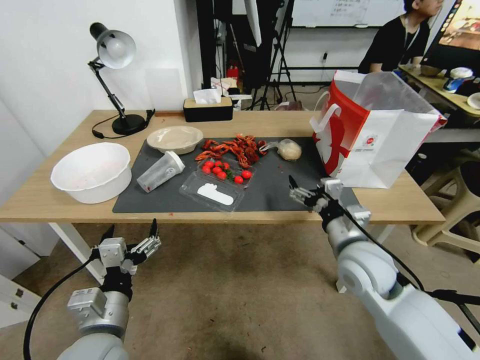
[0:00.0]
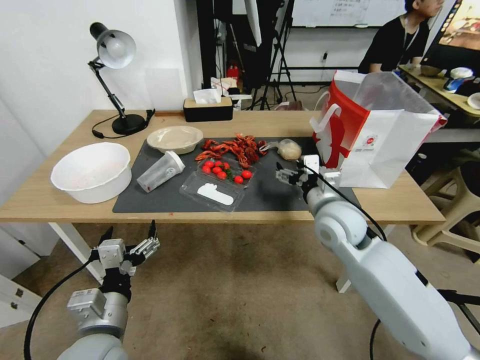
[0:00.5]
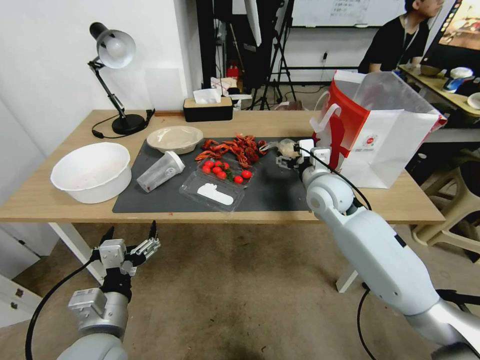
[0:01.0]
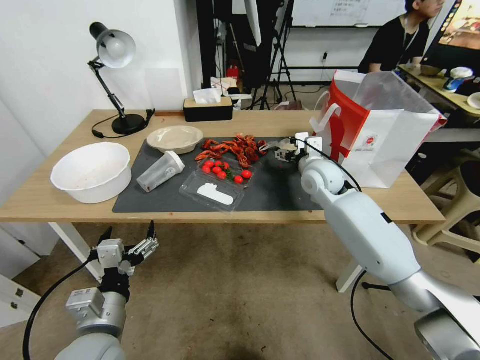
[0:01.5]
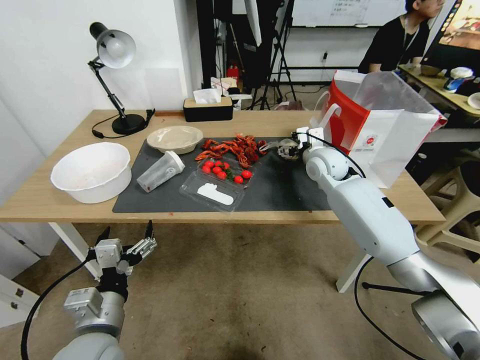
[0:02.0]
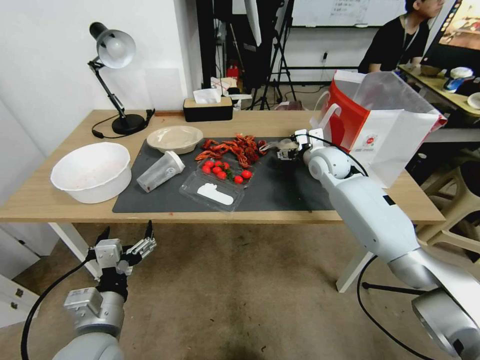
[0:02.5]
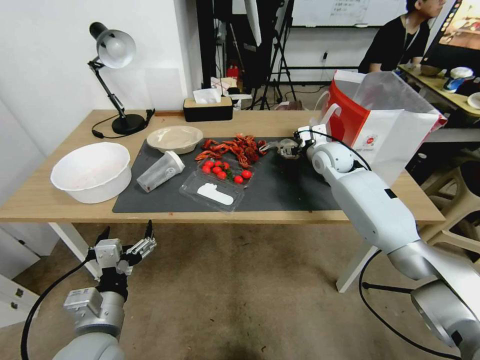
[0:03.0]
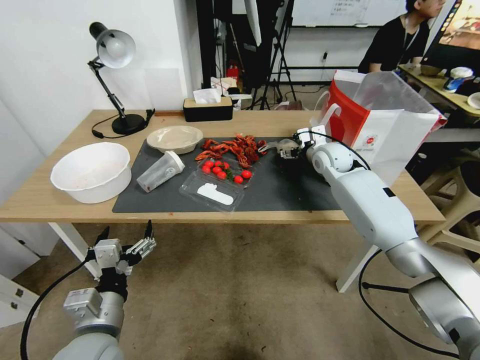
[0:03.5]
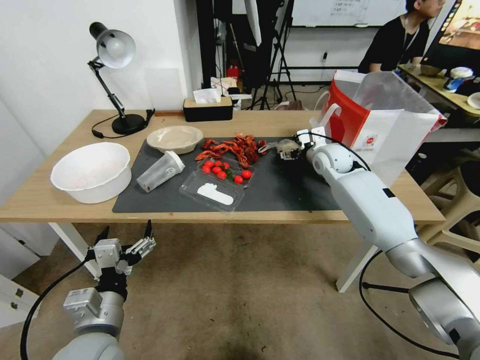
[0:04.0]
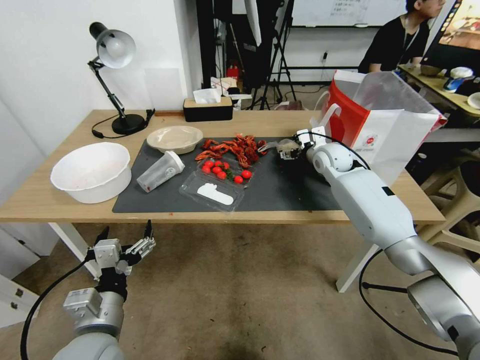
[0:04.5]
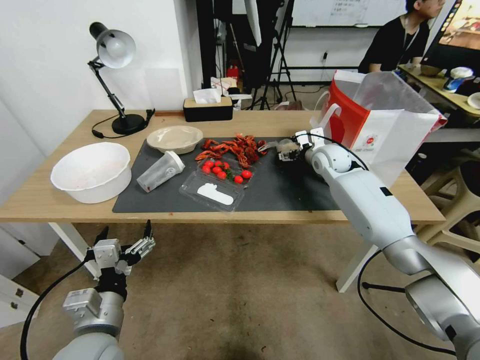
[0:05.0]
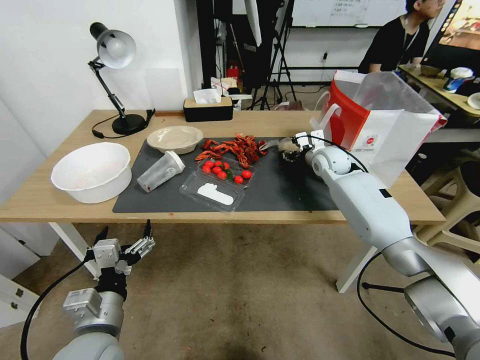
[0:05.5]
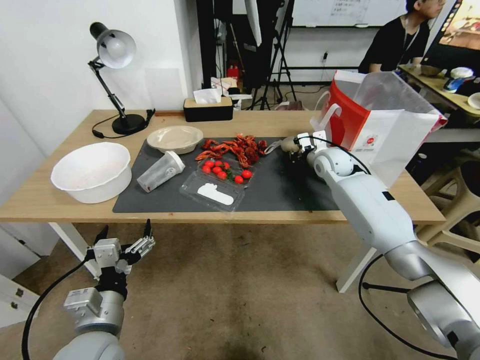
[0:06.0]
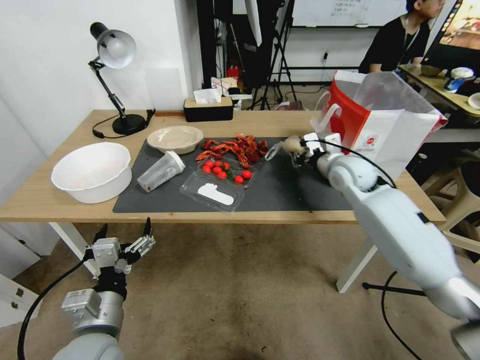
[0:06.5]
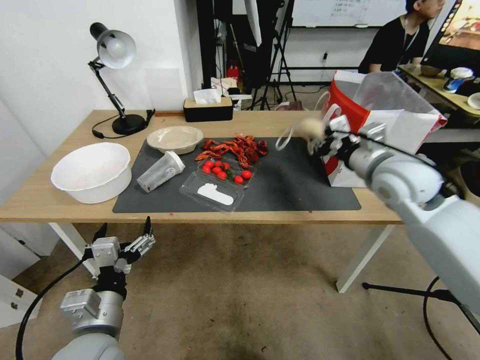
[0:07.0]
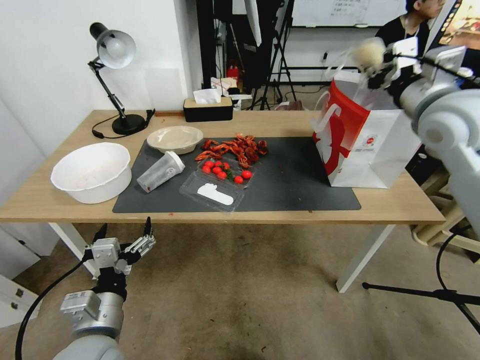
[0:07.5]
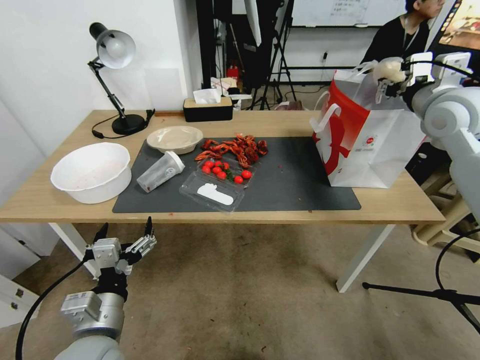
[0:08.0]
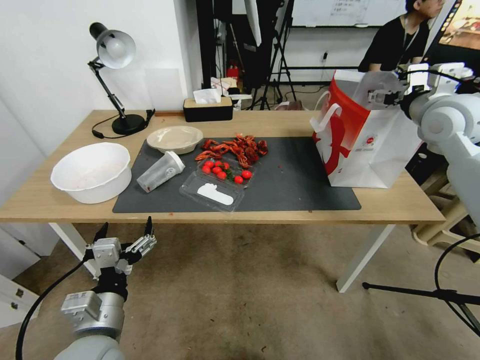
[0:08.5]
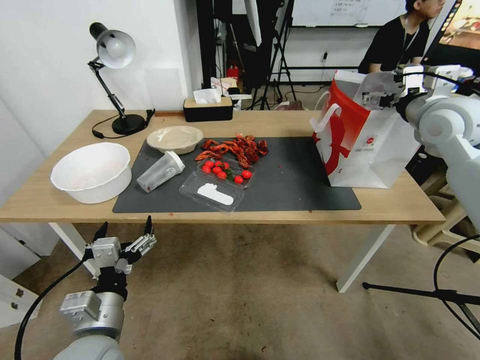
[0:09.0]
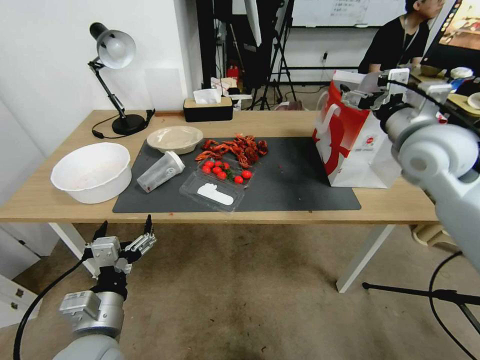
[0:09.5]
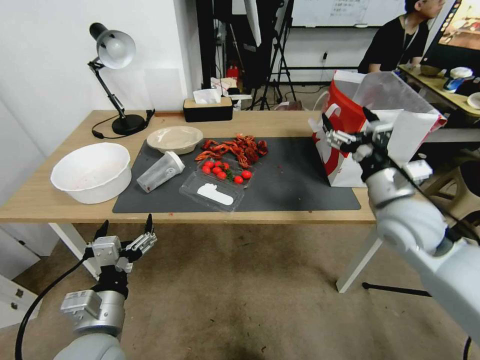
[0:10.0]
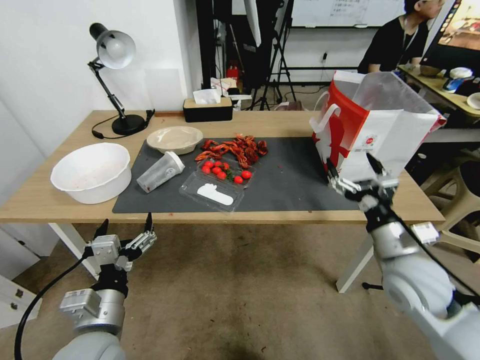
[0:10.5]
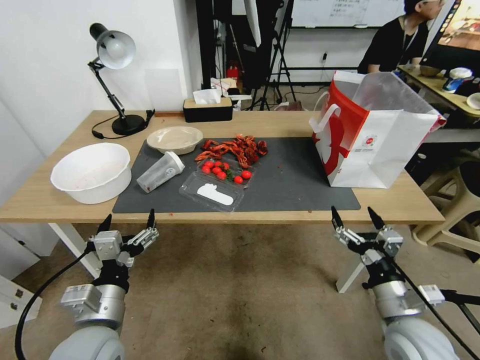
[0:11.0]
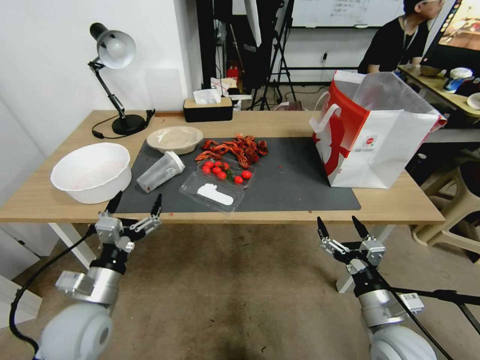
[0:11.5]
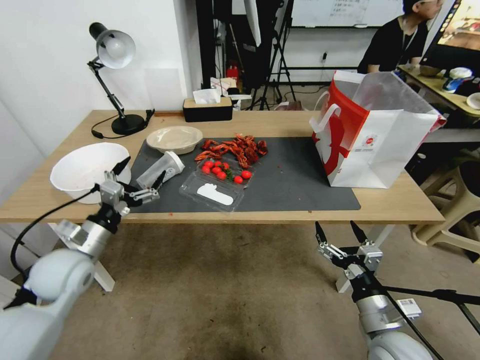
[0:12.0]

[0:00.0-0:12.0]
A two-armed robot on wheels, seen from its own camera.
0:00.0 to 0:02.0: The right gripper shifts roughly 25 cm forward.
0:02.0 to 0:04.0: The right gripper ends up roughly 5 cm from where it was.
0:04.0 to 0:06.0: The right gripper closes up.
0:06.0 to 0:08.0: The right gripper is displaced upward, backward and to the right by approximately 30 cm.
0:08.0 to 0:10.0: The right gripper moves downward and backward, roughly 20 cm, and opens up.
0:10.0 to 0:12.0: The right gripper heads downward and backward, covering roughly 25 cm. The left gripper goes about 20 cm forward and to the left.

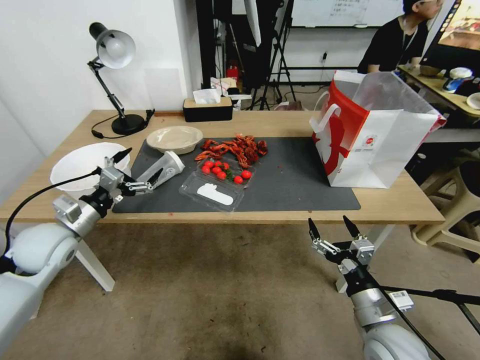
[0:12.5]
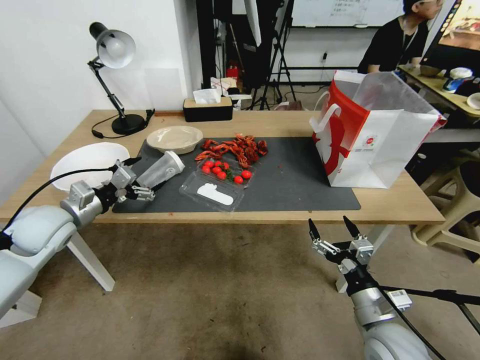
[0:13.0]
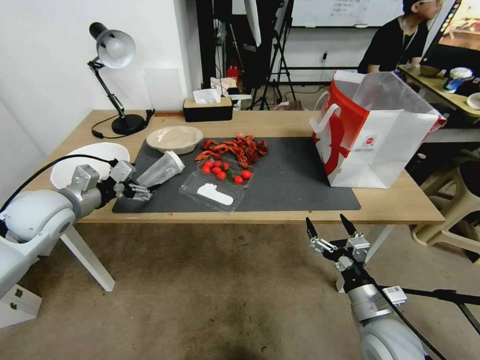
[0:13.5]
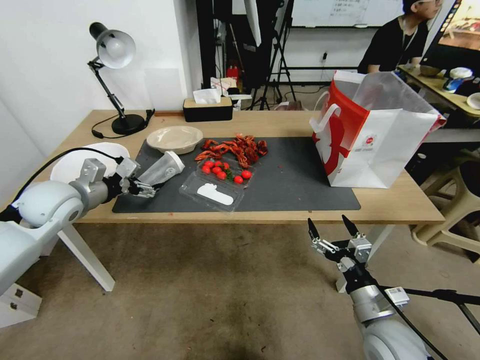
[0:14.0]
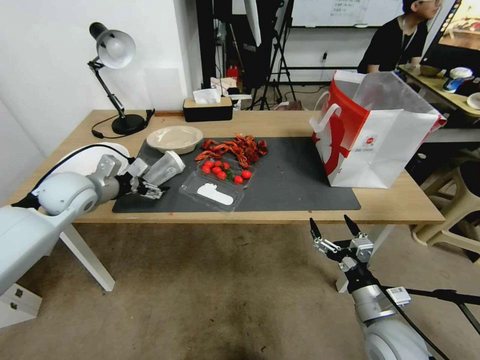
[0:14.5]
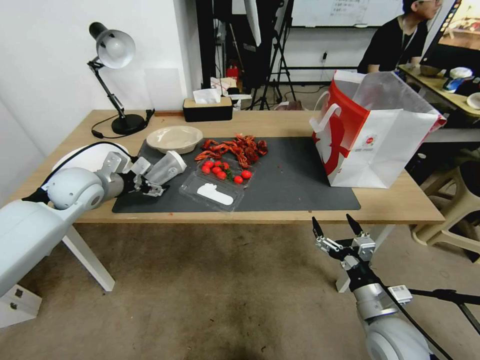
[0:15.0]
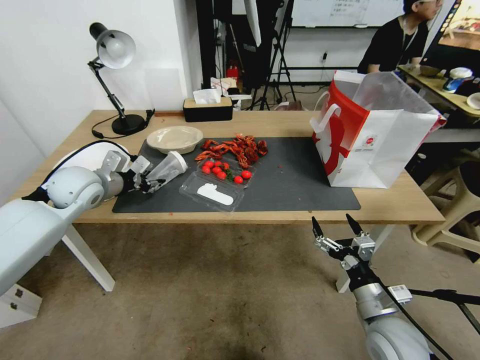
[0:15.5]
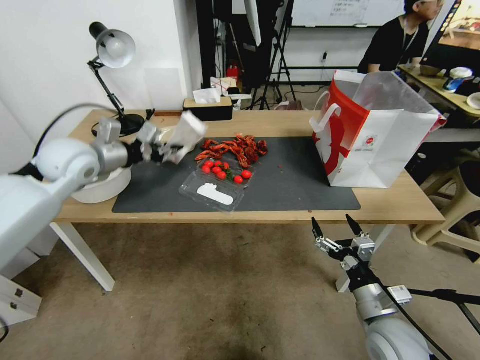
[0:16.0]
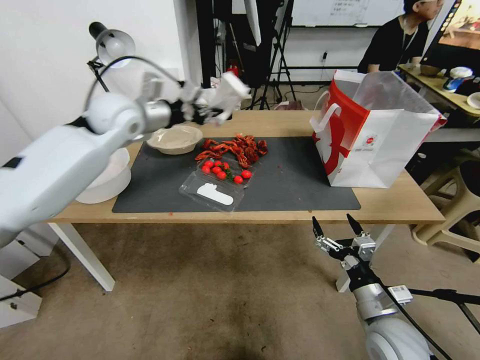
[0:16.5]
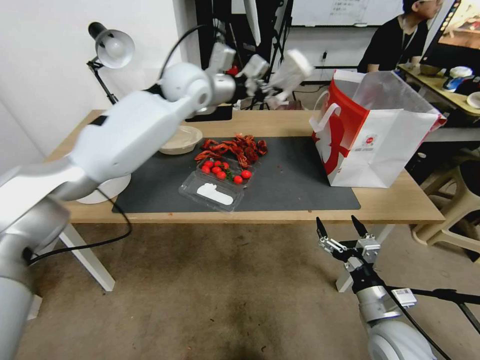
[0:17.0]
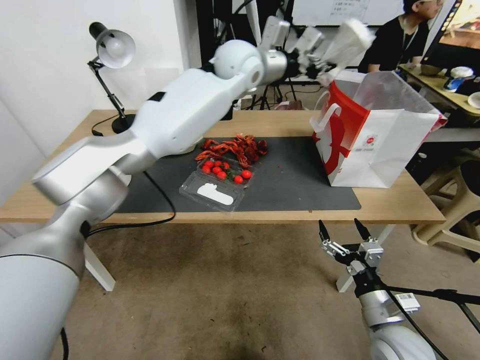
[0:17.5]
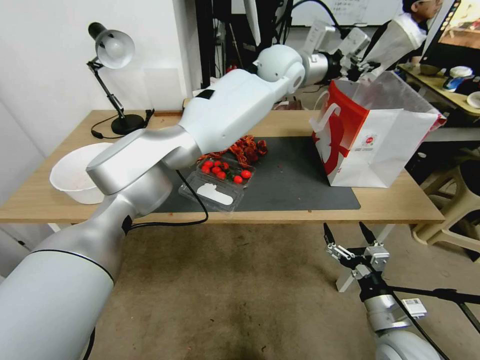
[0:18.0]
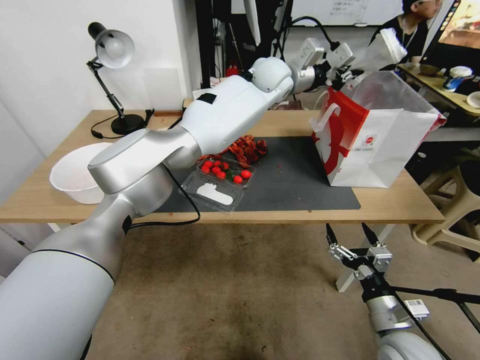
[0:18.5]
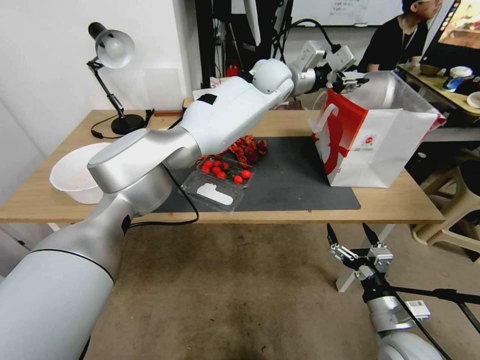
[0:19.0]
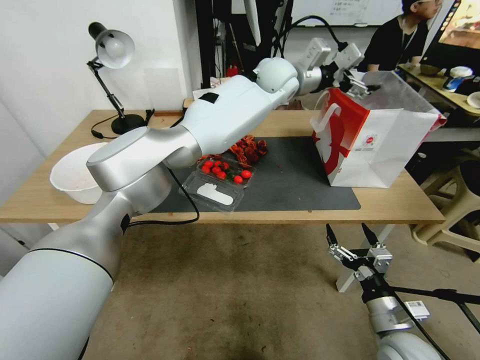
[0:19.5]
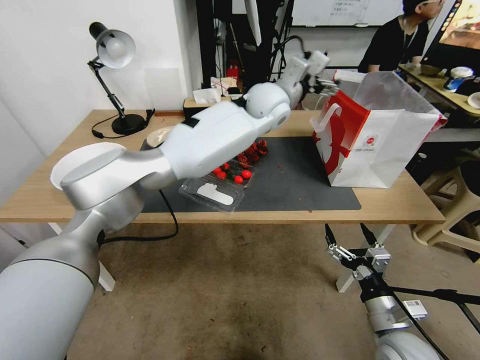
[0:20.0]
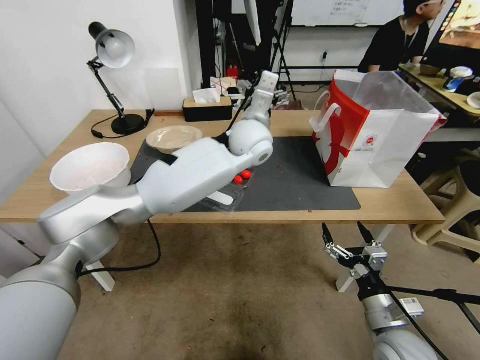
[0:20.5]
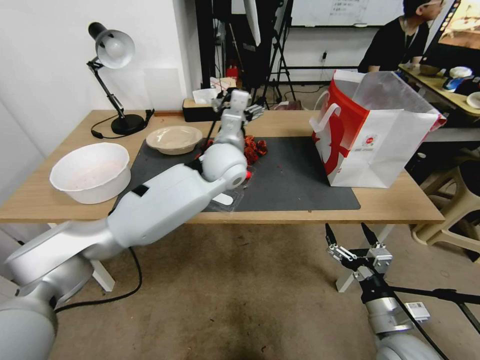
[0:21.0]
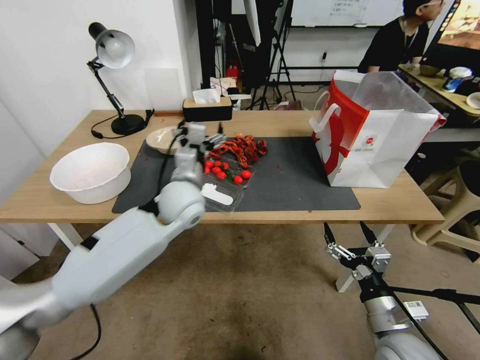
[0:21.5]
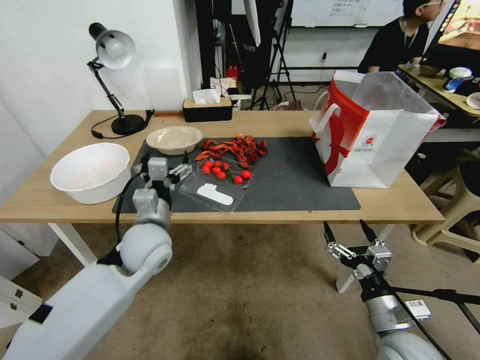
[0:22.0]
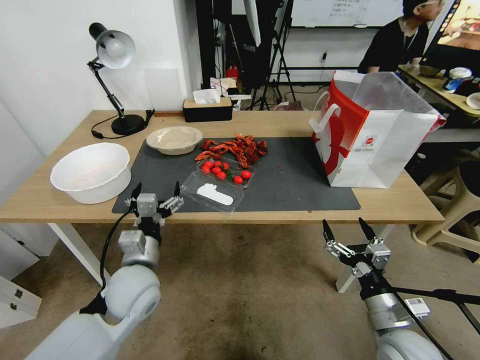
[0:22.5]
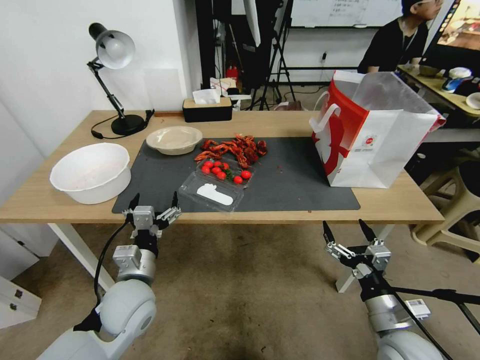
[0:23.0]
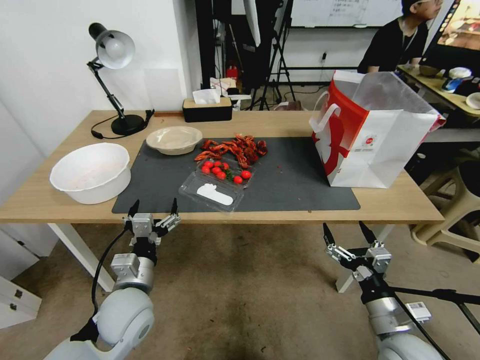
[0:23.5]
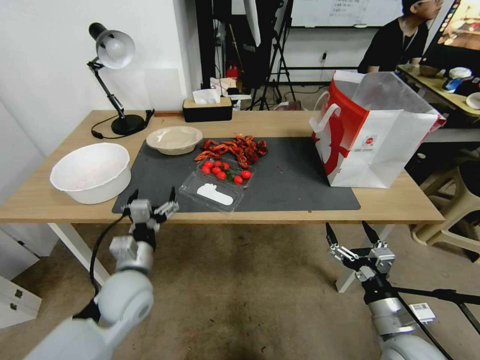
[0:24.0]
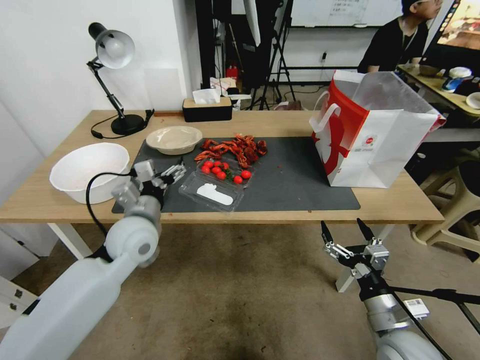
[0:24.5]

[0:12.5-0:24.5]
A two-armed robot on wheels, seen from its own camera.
0:12.5 to 0:14.5: The left gripper moves forward and upward, some 10 cm.
0:14.5 to 0:16.5: The left gripper travels upward, to the right and forward by about 20 cm, and closes up.
0:16.5 to 0:18.5: The left gripper is displaced to the right by some 30 cm.
0:18.5 to 0:20.5: The left gripper moves backward and downward, some 10 cm, and opens.
0:20.5 to 0:22.5: The left gripper moves backward, to the left and downward, roughly 40 cm.
0:22.5 to 0:24.5: The left gripper travels forward and upward by approximately 10 cm.

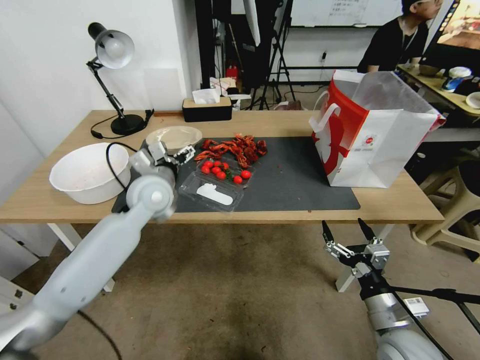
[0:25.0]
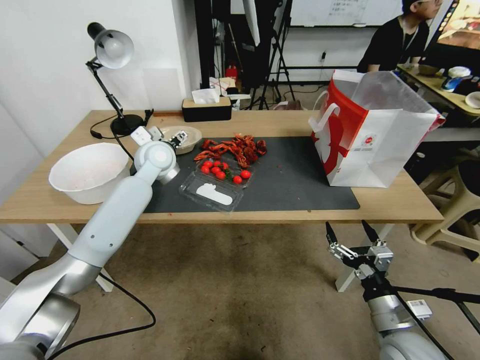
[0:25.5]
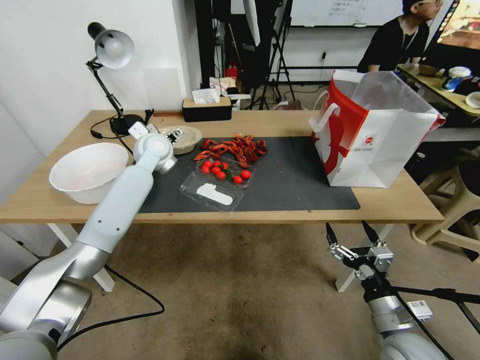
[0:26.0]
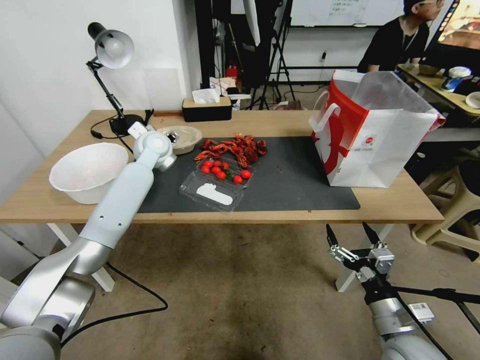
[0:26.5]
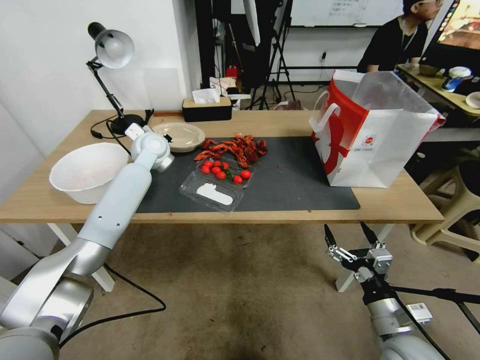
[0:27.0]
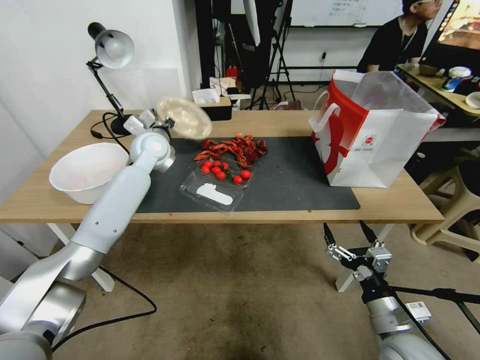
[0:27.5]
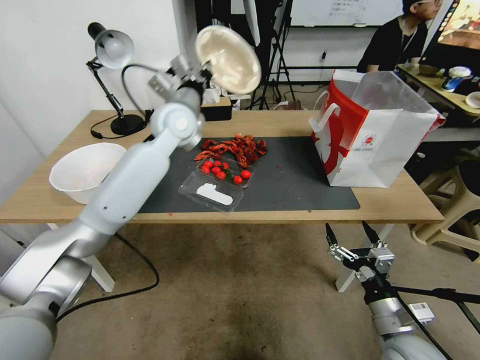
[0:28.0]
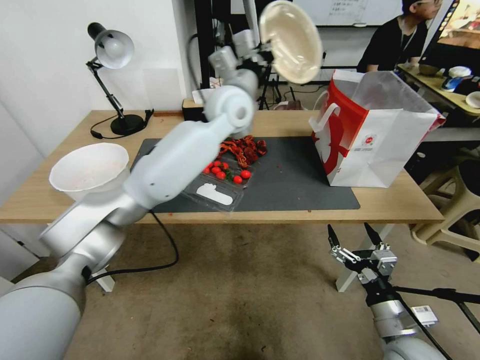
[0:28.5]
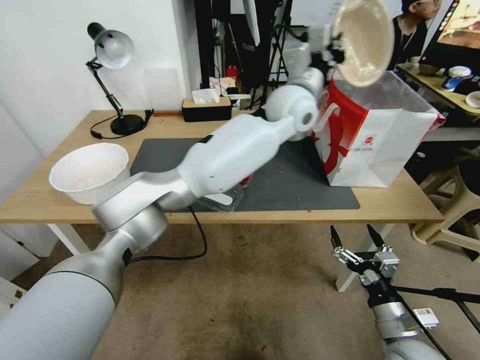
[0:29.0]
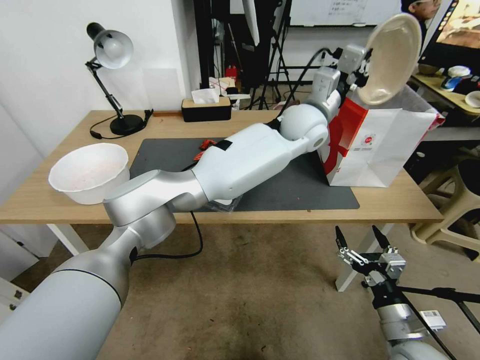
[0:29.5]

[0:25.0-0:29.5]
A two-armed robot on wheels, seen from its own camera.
0:25.0 to 0:27.0: The left gripper moves forward, some 15 cm, and closes up.
0:27.0 to 0:29.5: The left gripper moves to the right, some 35 cm.
